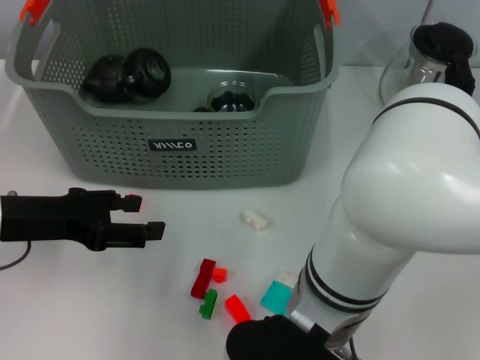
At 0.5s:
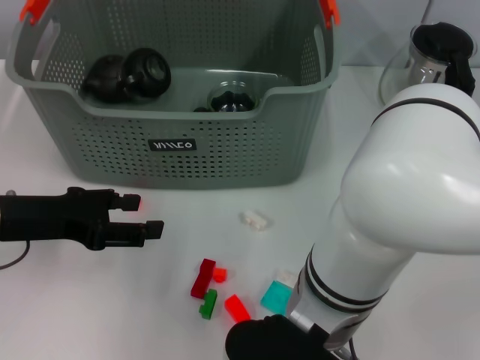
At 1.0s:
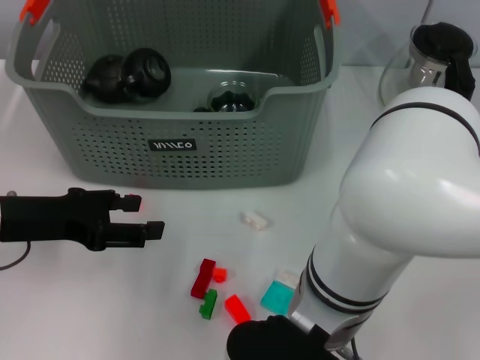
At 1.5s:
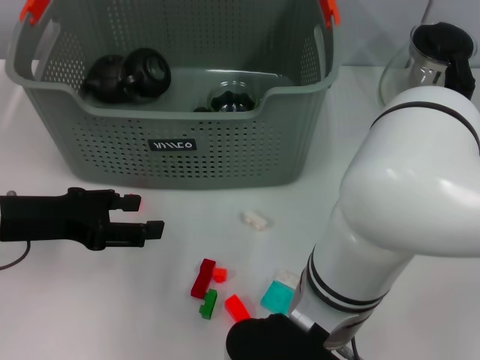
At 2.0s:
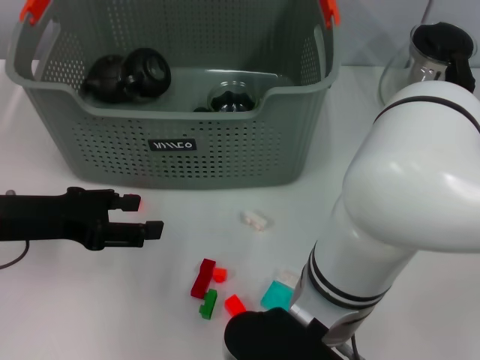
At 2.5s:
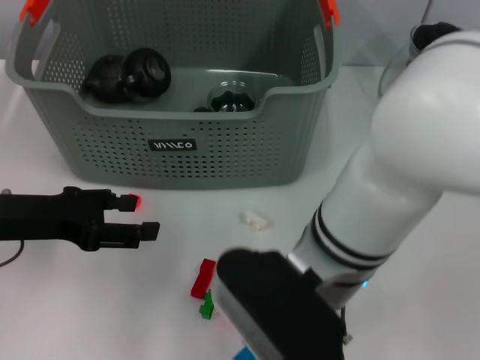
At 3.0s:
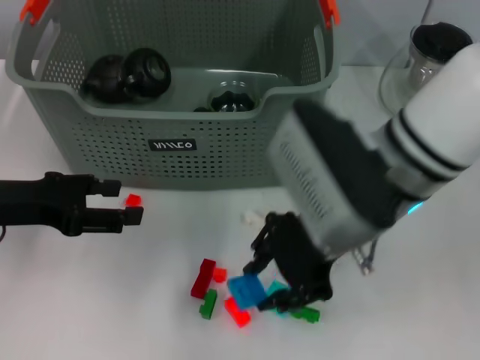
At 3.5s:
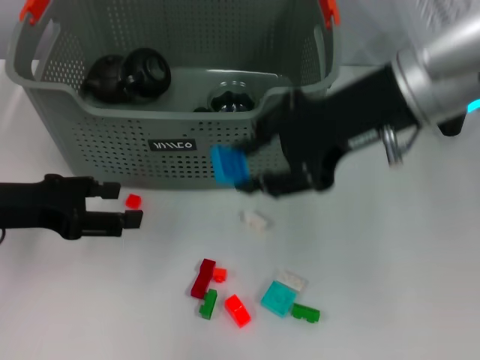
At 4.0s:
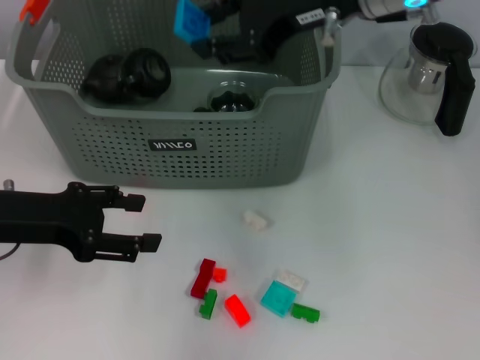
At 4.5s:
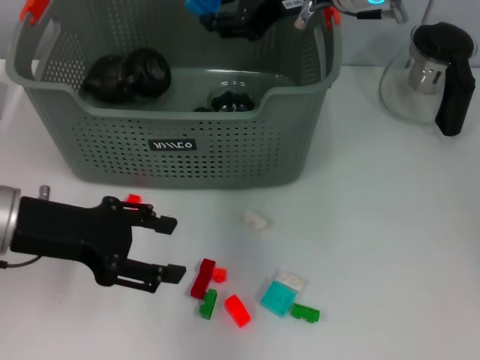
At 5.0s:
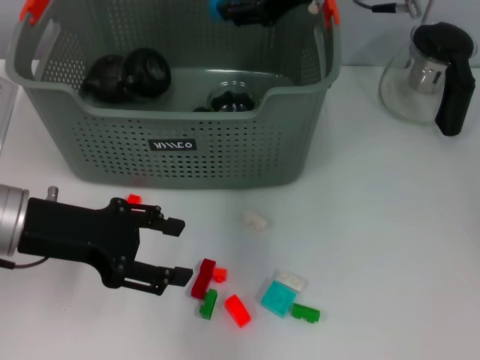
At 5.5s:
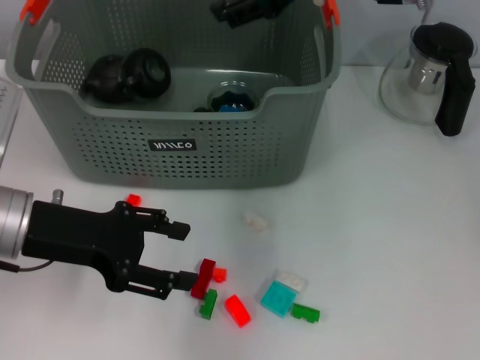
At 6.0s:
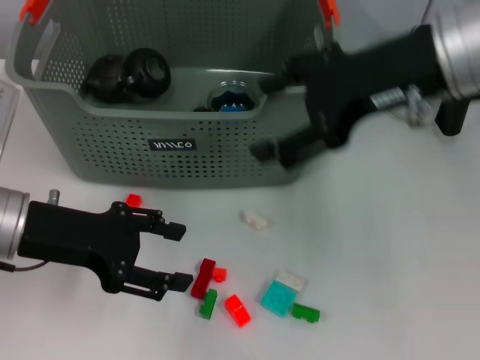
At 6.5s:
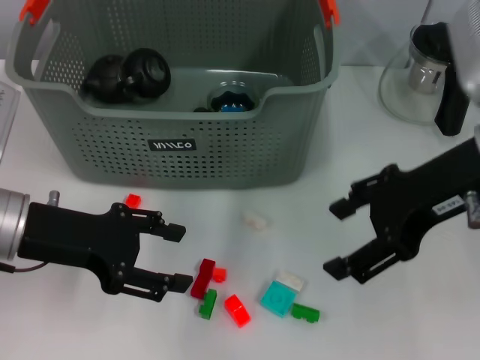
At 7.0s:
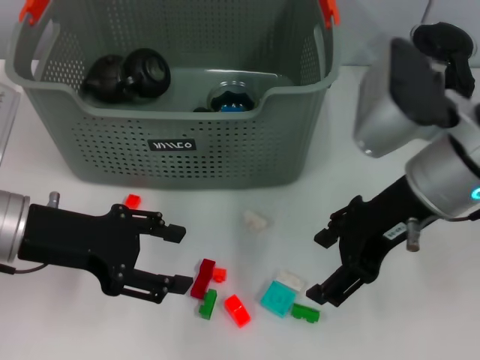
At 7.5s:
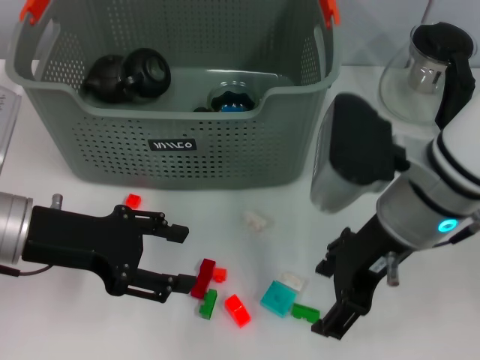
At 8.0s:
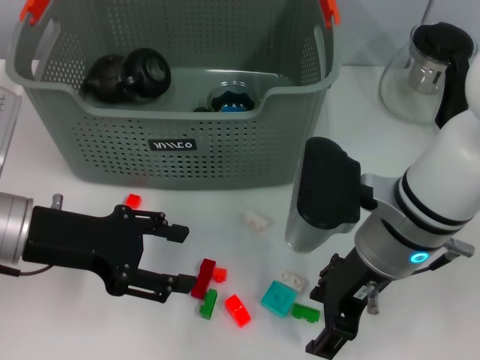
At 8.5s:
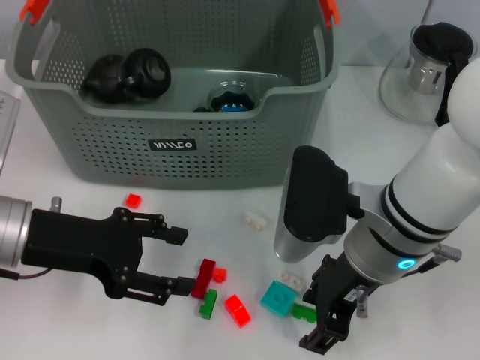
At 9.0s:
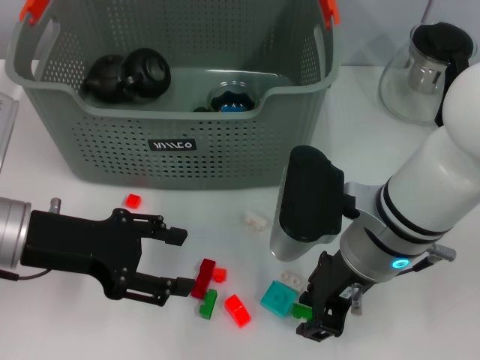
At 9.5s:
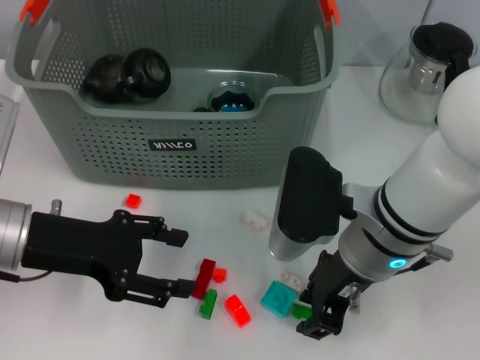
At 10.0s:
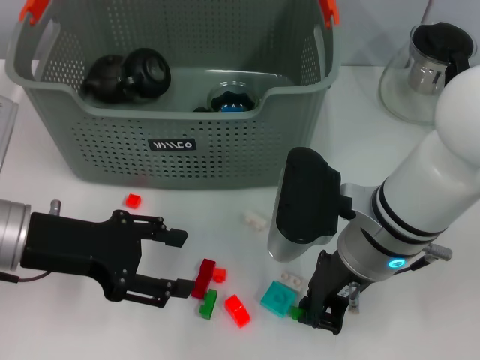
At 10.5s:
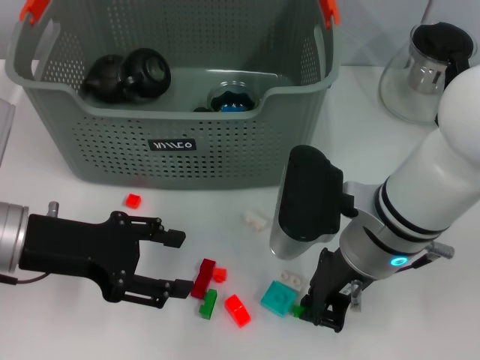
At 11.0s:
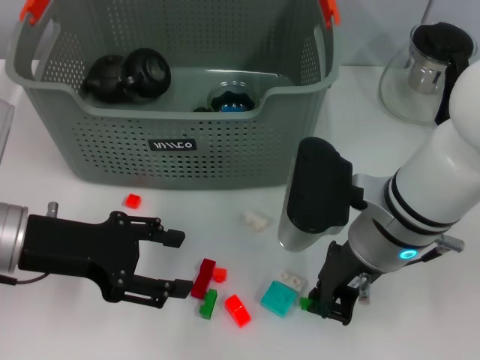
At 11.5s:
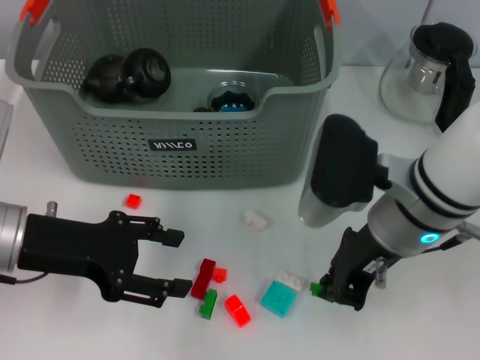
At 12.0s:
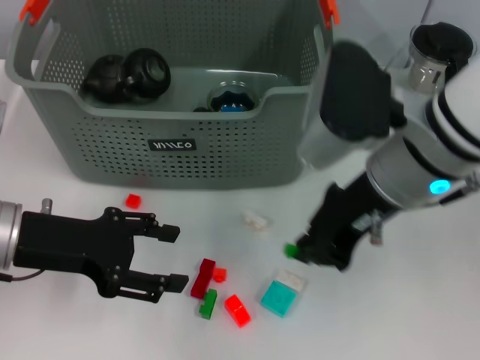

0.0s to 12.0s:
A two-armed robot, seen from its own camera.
Task of the whole recording: pick up the teacup on the table and place it into the storage bin, pick up the block on the table and place it into the storage bin.
Step, 2.0s to 5.0s: Place the dark blue block in the storage box with right gripper.
Step, 5.5s to 10.0s: Grasp the green block with right gripper.
0.0s to 2.0s: The right gripper closes its fingers.
2.0s to 4.0s: The right gripper heads forward, upward and to the right, covering roughly 25 cm.
4.0s to 6.0s: The right gripper is displaced backward by some 5 cm, and opens its fingers.
6.0s to 8.0s: The right gripper is displaced downward by approximately 15 cm.
8.0s to 10.0s: The right gripper closes.
10.0s to 12.0s: The right gripper goes about 10 cm upward.

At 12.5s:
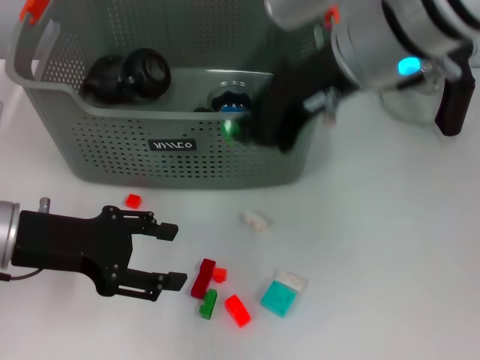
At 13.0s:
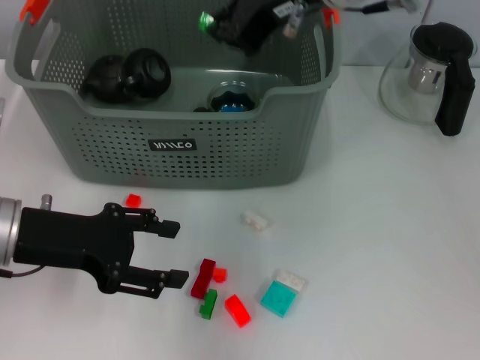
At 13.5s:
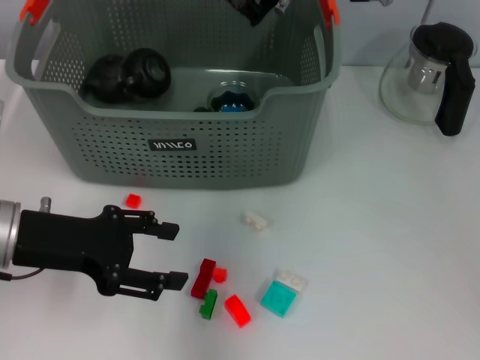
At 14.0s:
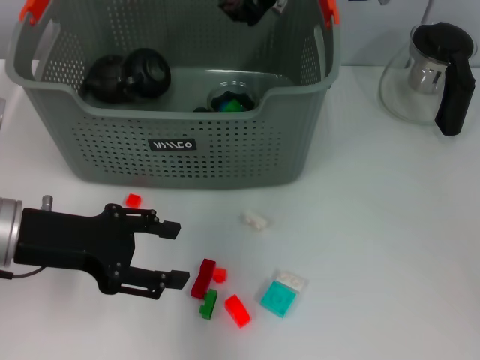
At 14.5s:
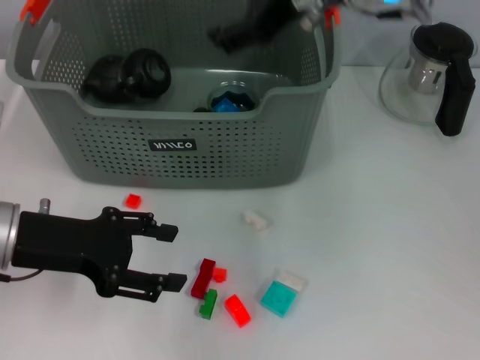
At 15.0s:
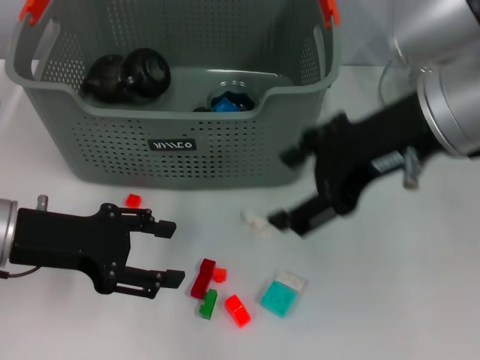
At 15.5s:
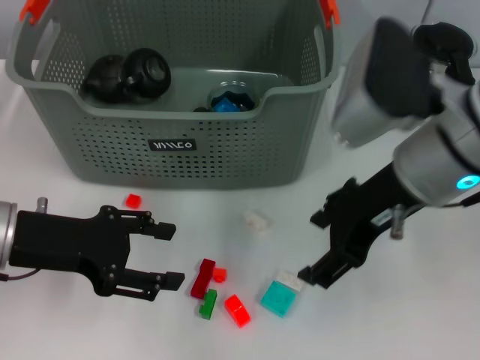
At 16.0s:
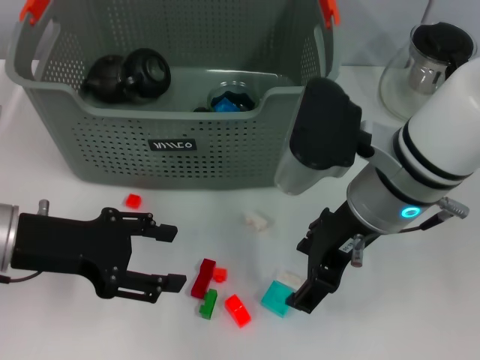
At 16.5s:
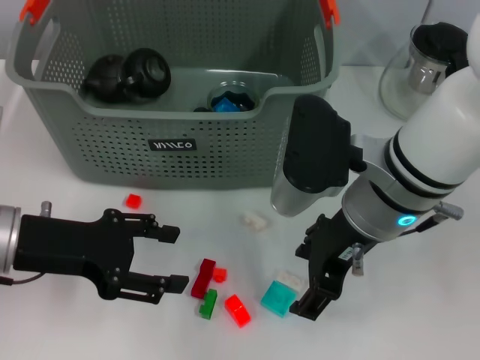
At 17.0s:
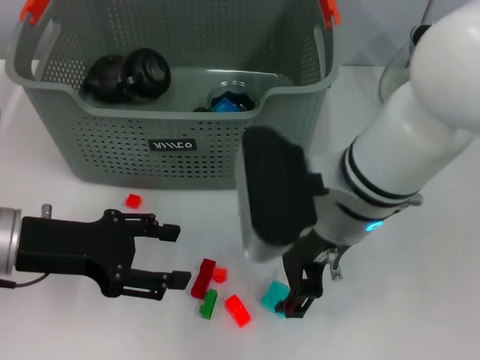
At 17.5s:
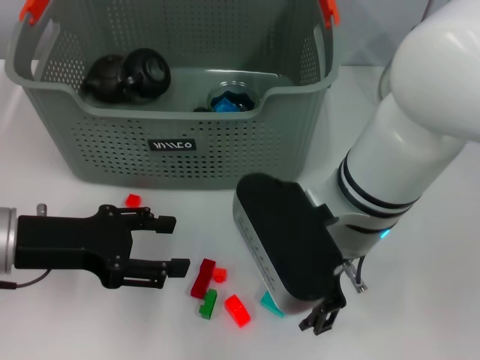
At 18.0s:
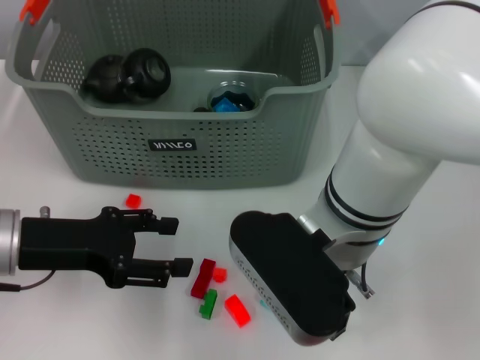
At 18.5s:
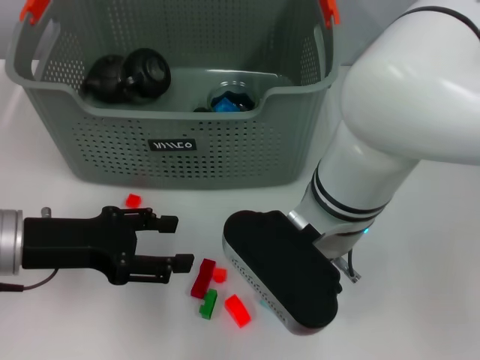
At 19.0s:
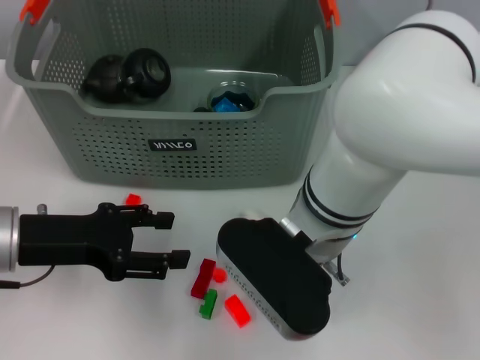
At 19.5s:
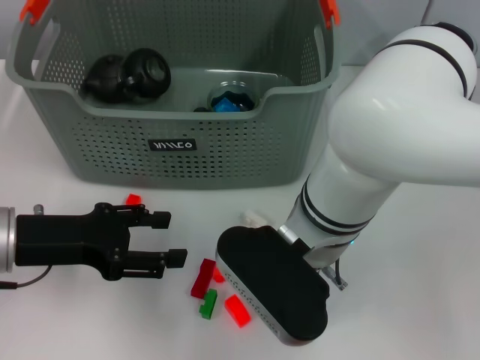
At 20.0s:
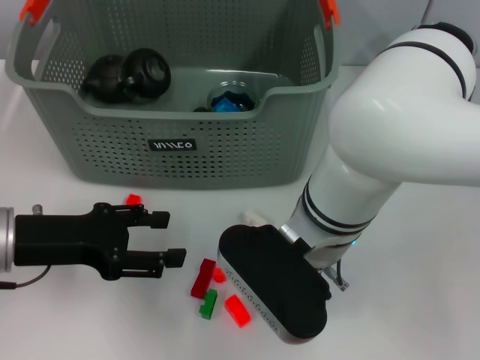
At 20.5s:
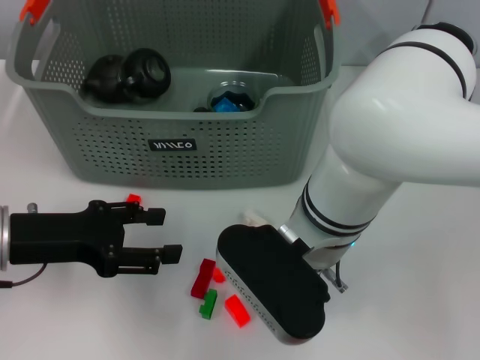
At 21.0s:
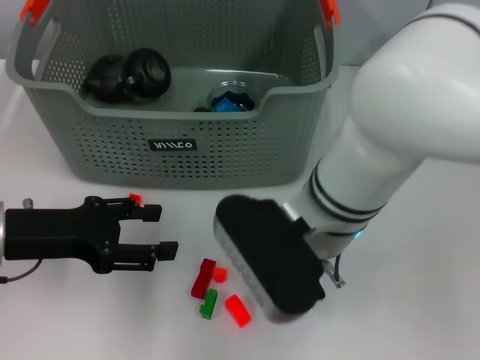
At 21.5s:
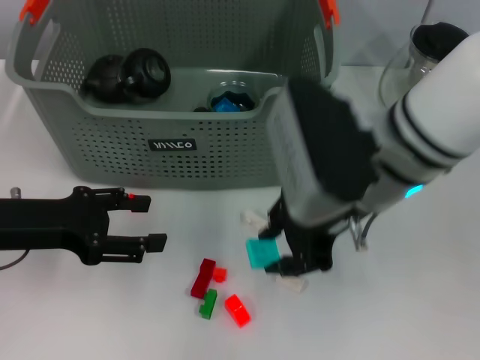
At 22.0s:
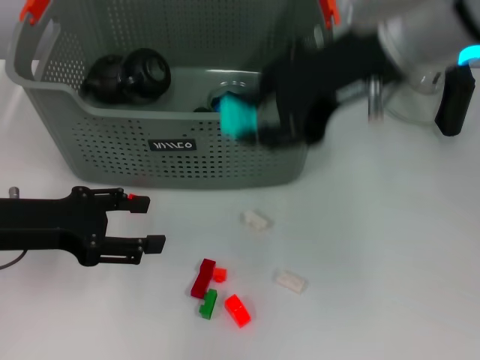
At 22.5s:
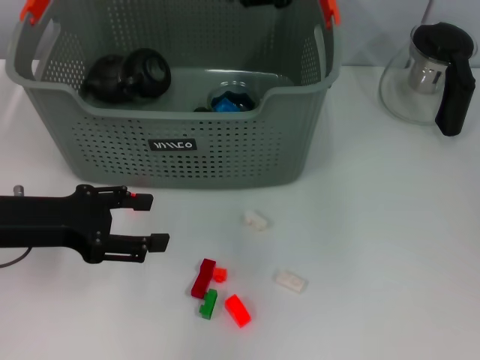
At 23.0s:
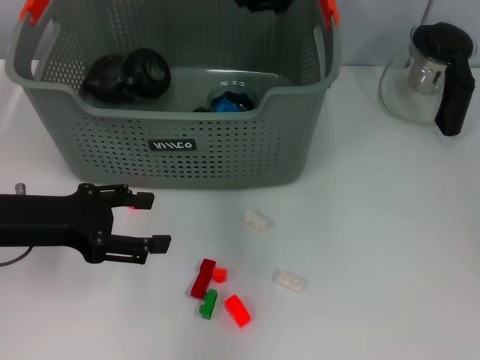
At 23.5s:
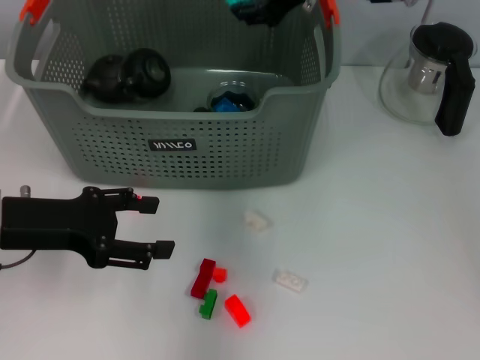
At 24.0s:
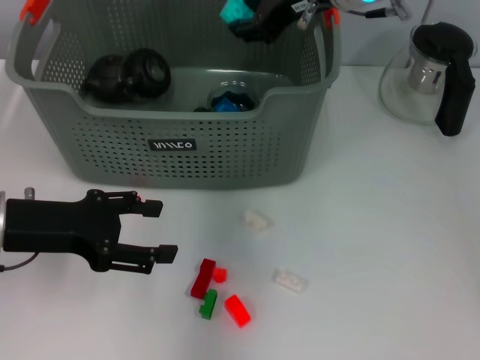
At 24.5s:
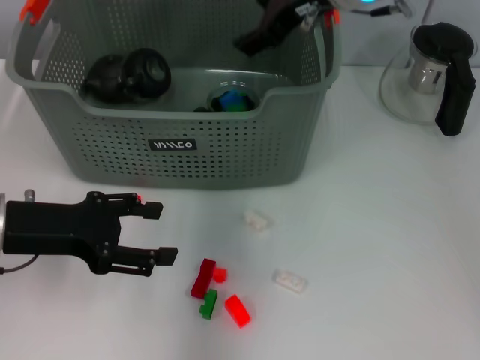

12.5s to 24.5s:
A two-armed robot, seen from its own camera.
Task of the whole recording: pick up the teacup on the table and place it into the storage bin, pick up the block on the table and place it into the storage bin.
Step, 14.5s to 20.5s: Grasp the light blue block with right gripper.
Step, 21.0s to 24.0s: Place the light blue block in the storage box with right gripper.
12.5s to 14.5s: The right gripper opens up.
14.5s to 16.5s: The right gripper is displaced downward and backward by roughly 15 cm.
16.5s to 18.5s: The right gripper shifts roughly 5 cm to the left.
18.5s to 20.5s: The right gripper closes its fingers.
20.5s to 22.5s: The right gripper moves upward and forward, roughly 20 cm.
22.5s to 24.5s: The right gripper moves downward and forward, roughly 10 cm.

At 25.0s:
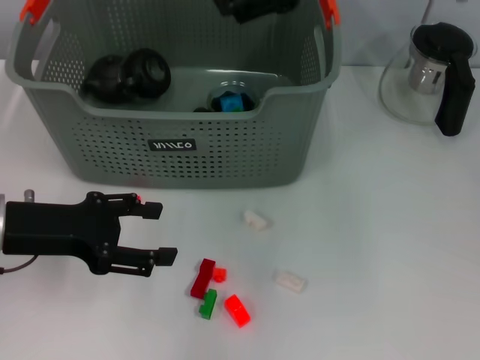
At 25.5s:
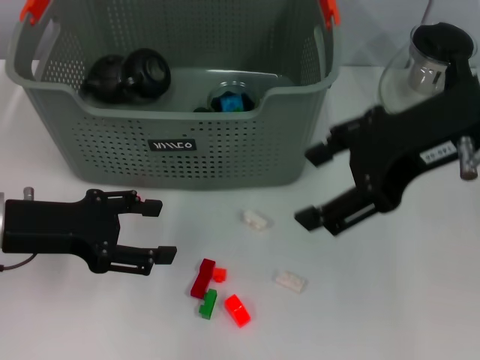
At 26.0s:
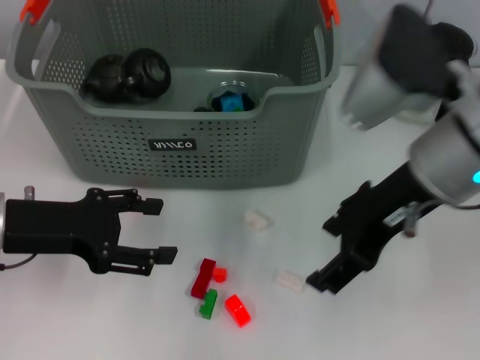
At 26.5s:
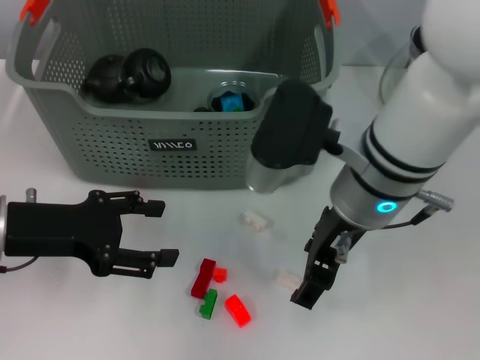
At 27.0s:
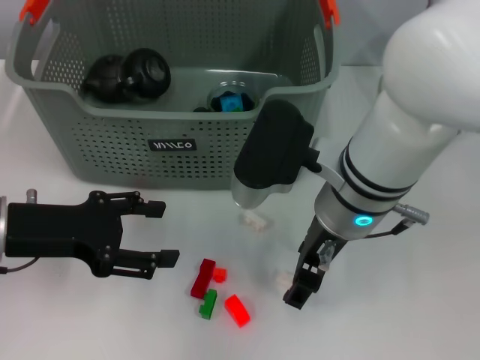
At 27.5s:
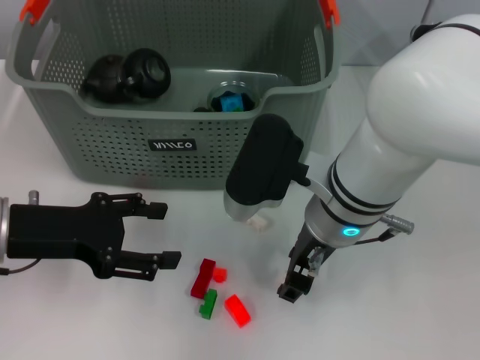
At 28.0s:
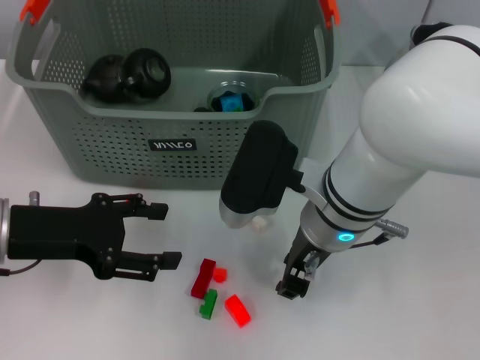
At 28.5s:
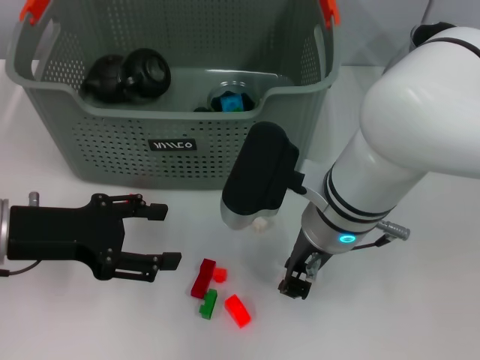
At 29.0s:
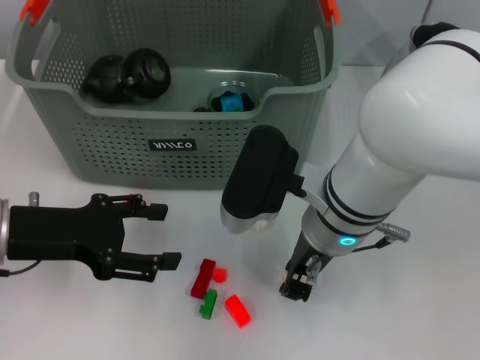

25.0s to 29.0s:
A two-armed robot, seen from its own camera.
Task of the whole recording: pick up the teacup on the table and place it into the storage bin, pick up the block on the table and place it into the storage bin.
25.0s to 27.0s: The right gripper moves downward and backward, some 15 cm.
27.0s to 29.0s: The right gripper closes up.
